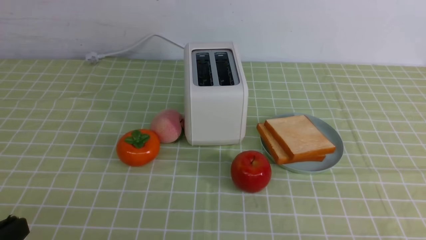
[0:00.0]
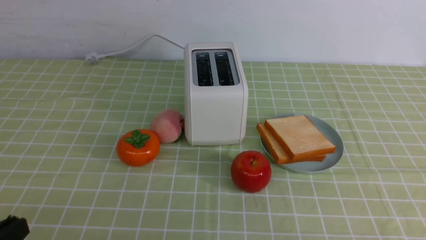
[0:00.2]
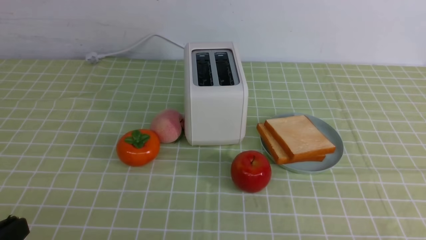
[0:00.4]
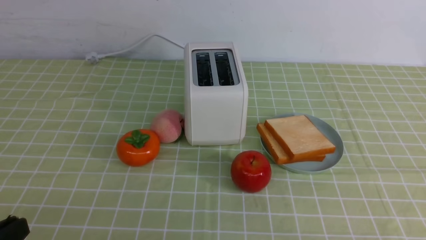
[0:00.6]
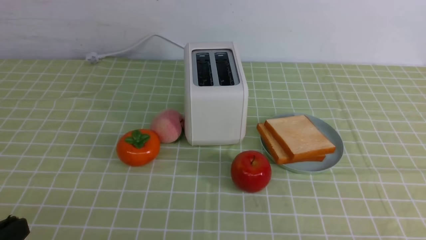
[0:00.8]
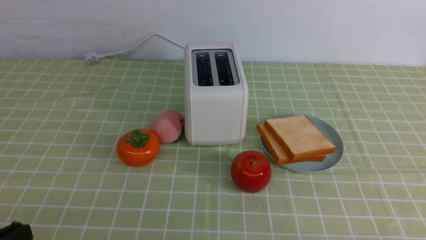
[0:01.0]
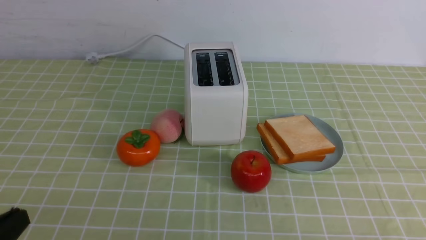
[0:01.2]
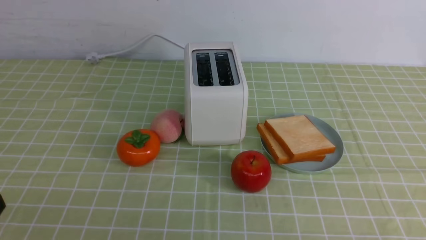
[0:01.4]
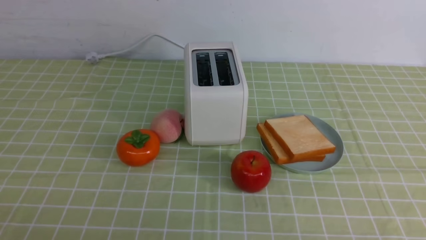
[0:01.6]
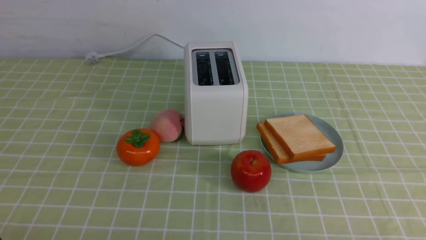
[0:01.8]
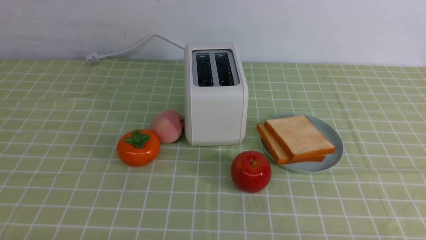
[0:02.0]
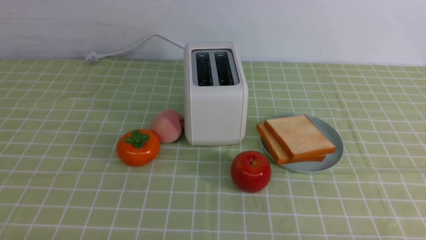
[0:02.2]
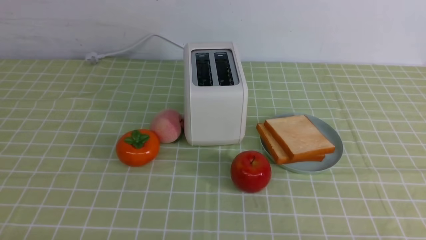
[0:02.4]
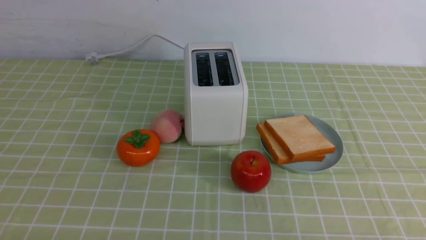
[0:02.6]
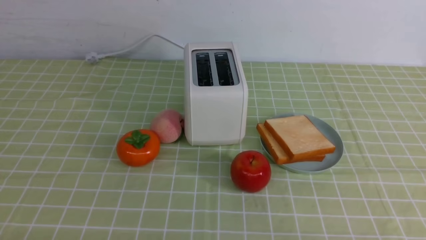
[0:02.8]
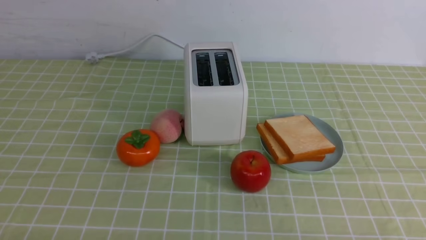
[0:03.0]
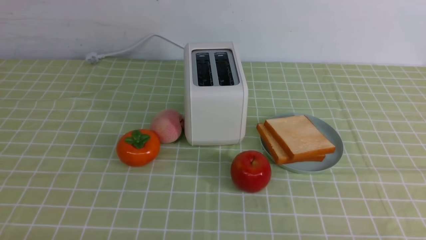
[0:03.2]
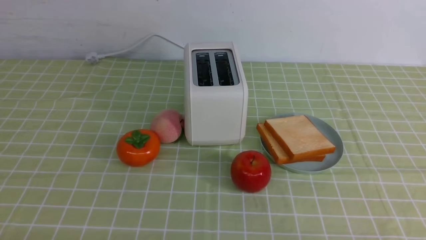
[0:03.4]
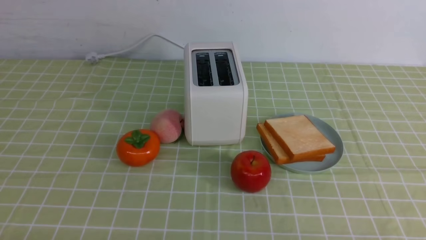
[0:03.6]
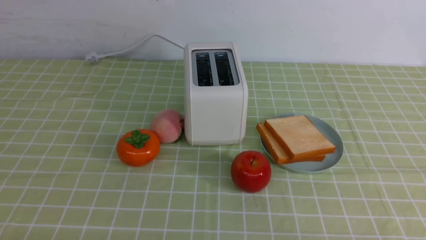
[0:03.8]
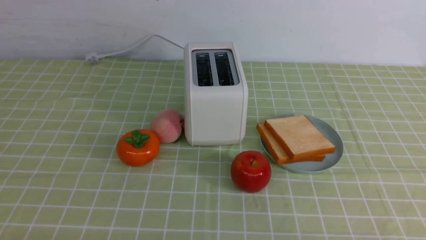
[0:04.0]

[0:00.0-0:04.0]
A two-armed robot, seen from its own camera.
Task of the whole recording: take toasted bread from bread machine on green coffee tablecloth place on plate.
0:02.6 to 0:04.0: The two grippers keep their place.
